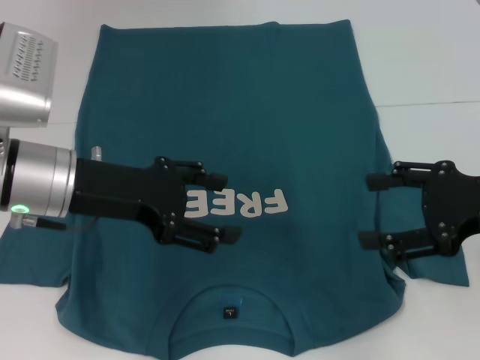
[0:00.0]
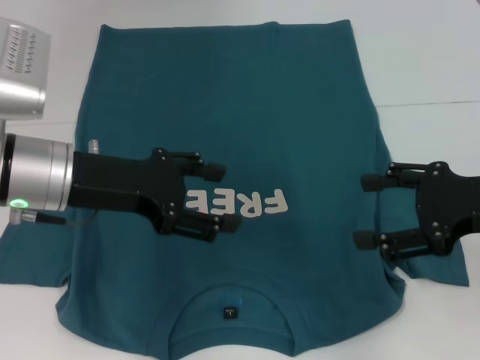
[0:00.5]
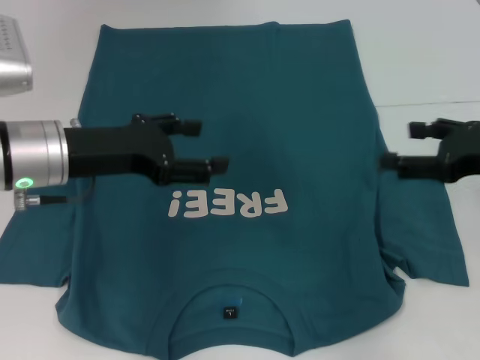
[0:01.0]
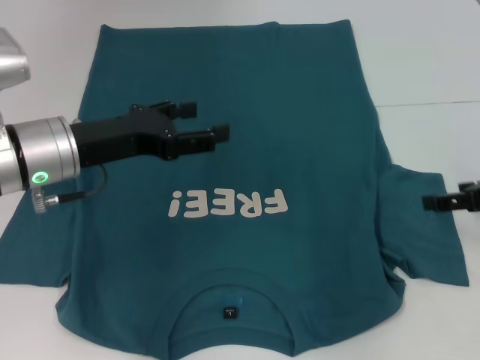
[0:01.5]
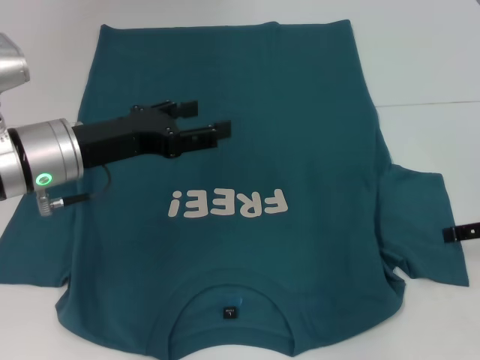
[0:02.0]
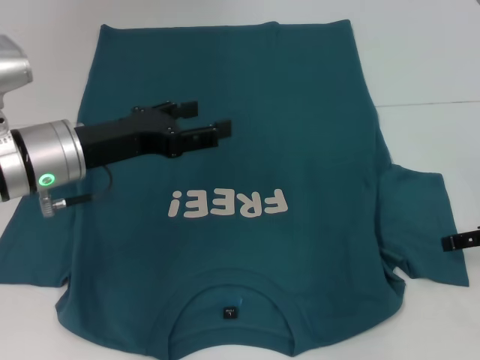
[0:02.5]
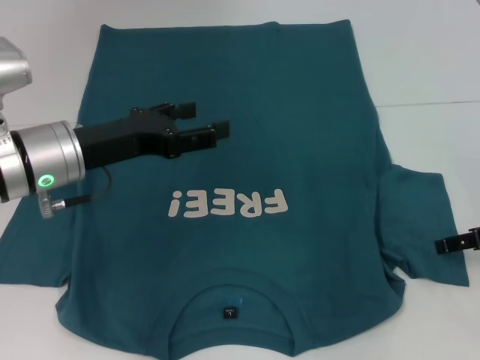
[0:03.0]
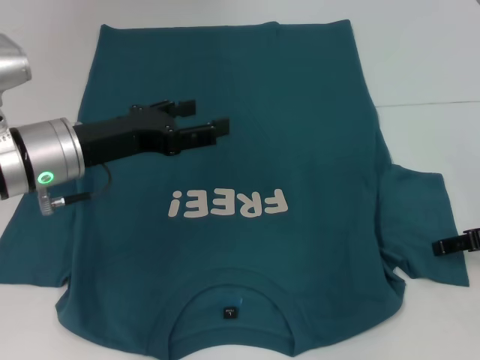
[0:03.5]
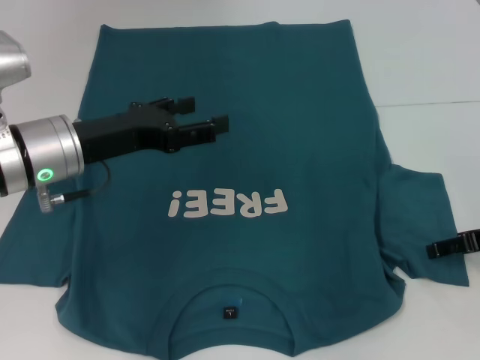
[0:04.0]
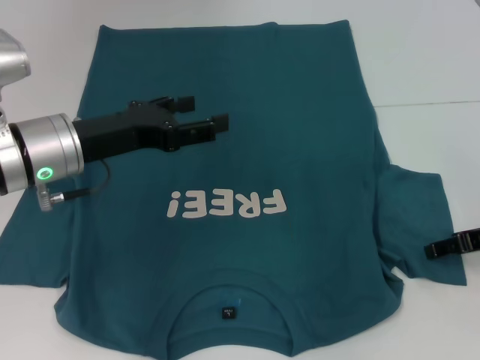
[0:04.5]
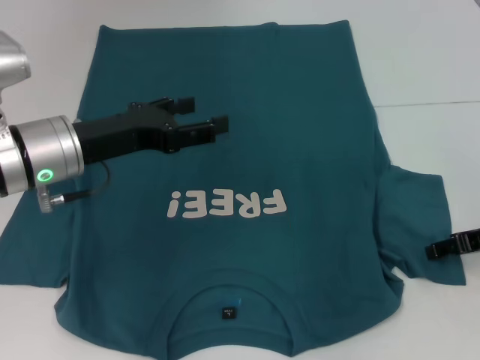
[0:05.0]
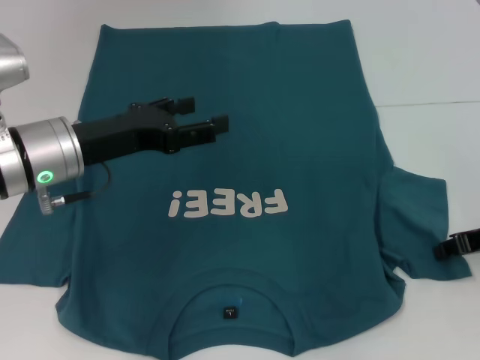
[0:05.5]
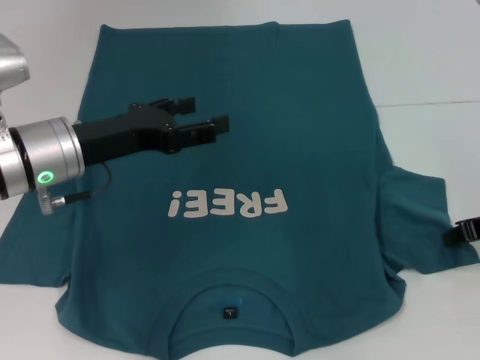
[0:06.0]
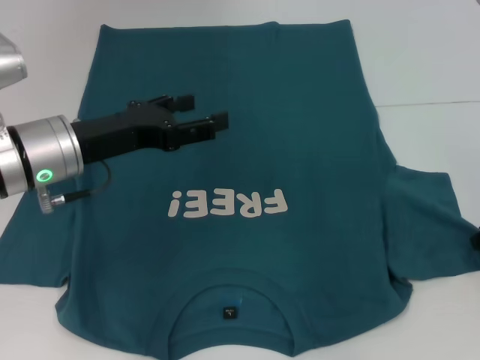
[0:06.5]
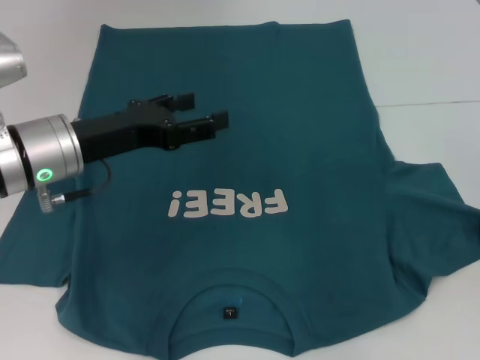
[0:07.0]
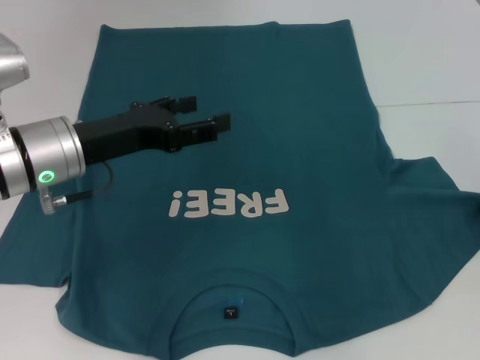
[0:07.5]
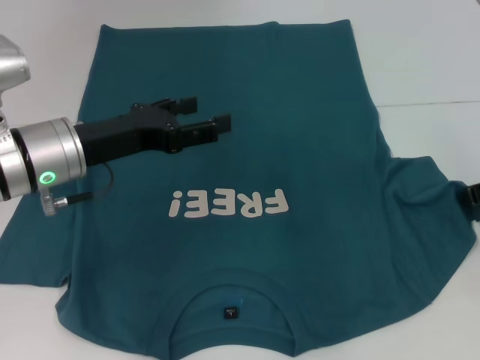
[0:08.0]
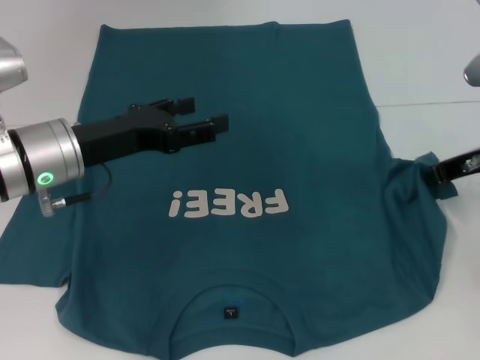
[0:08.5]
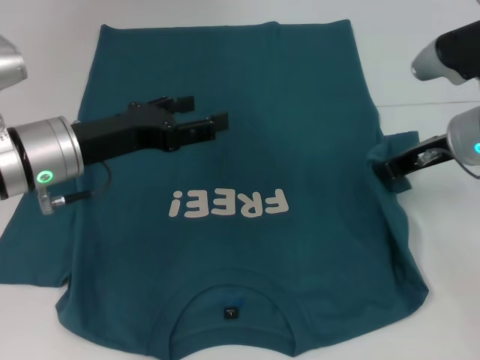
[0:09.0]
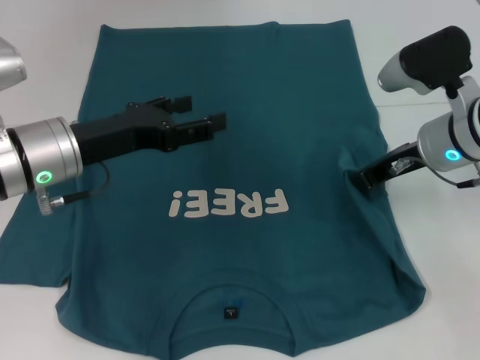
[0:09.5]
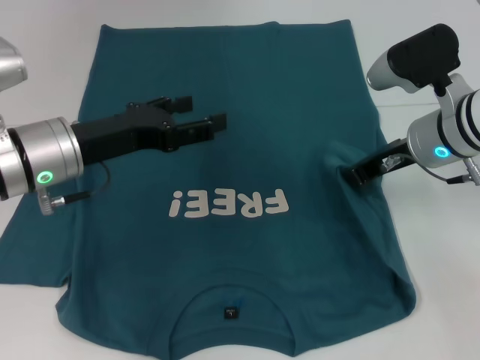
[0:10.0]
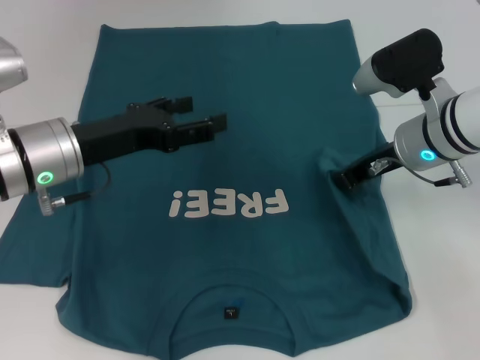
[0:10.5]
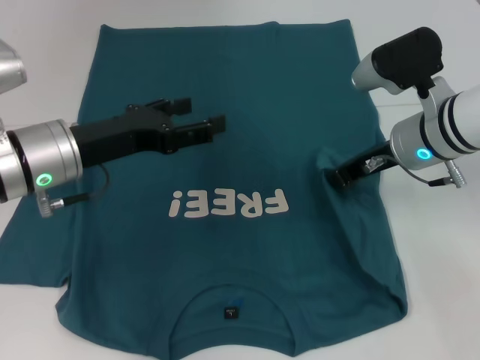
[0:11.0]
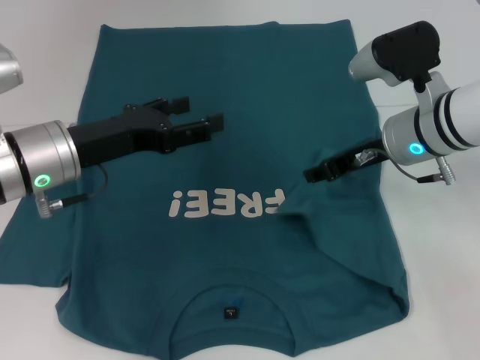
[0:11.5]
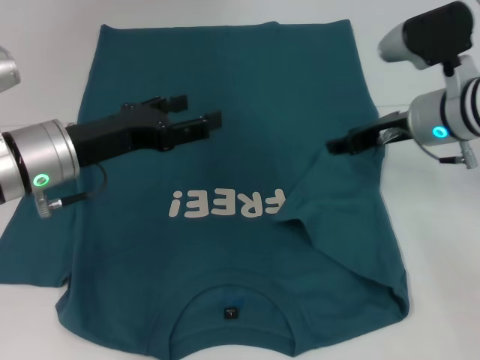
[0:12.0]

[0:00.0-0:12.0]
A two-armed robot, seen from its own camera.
0:00.0 to 0:02.0: The right gripper goes about 10 cm to the right and downward.
0:02.0 to 0:04.0: The grippers stay close to where they were, moving slightly.
0:04.0 to 0:06.0: The right gripper closes its fingers.
0:06.0 to 0:08.0: The grippers move only a little.
0:08.0 to 0:10.0: The right gripper moves to the left, approximately 10 cm.
0:10.0 to 0:12.0: The right gripper opens up.

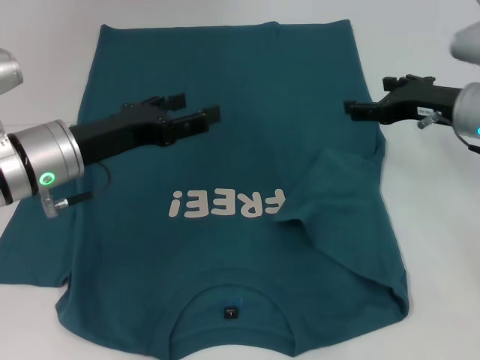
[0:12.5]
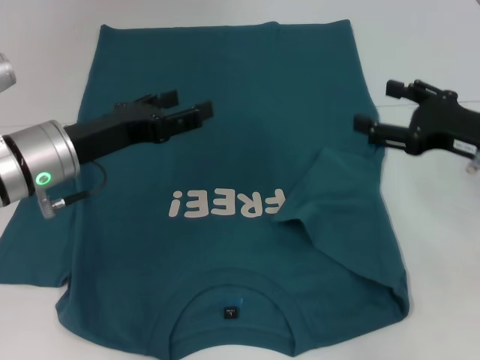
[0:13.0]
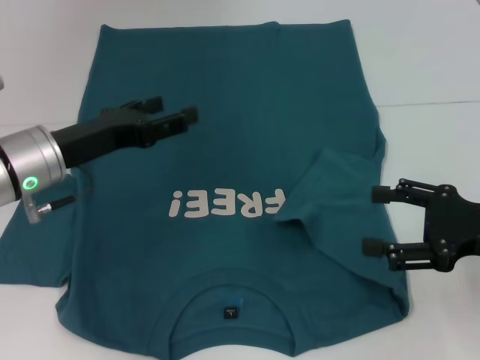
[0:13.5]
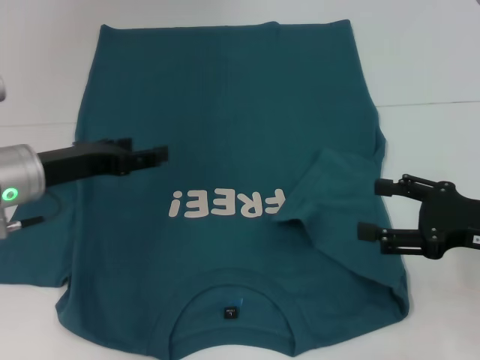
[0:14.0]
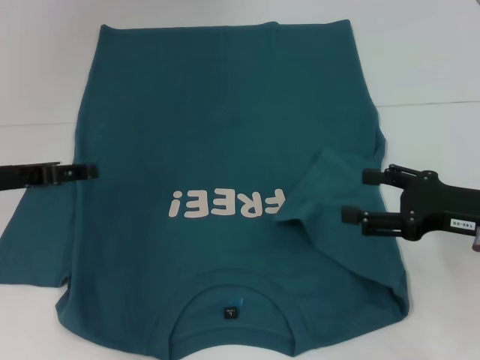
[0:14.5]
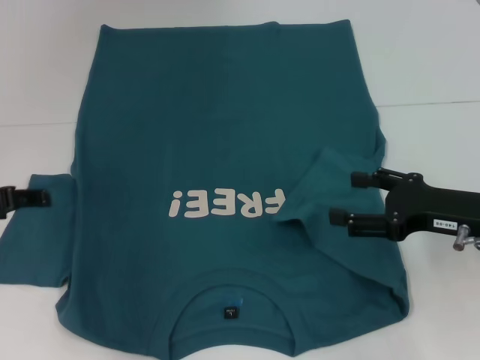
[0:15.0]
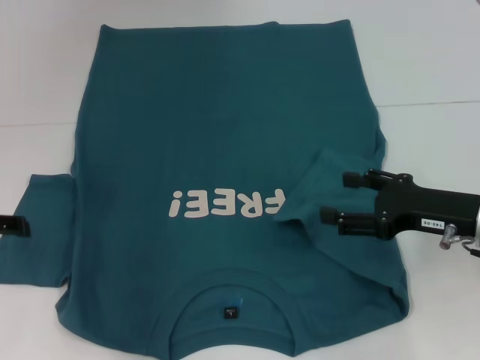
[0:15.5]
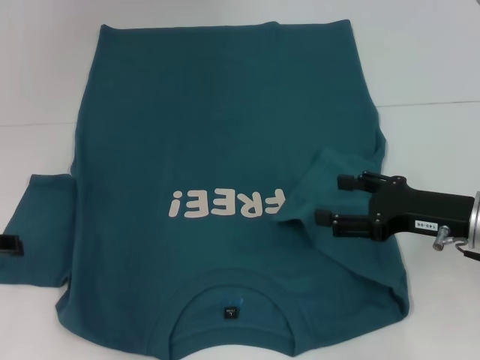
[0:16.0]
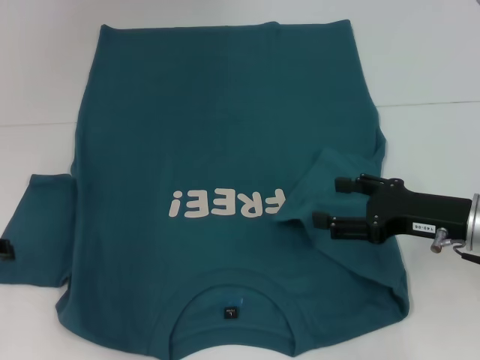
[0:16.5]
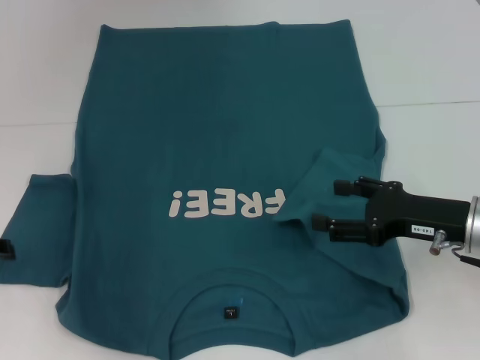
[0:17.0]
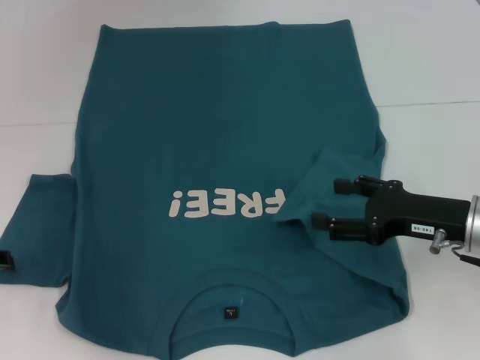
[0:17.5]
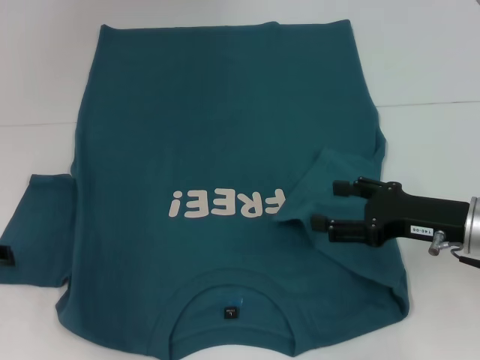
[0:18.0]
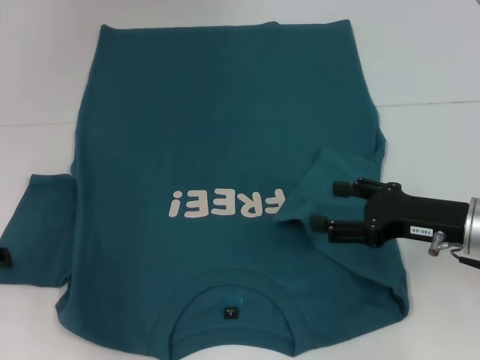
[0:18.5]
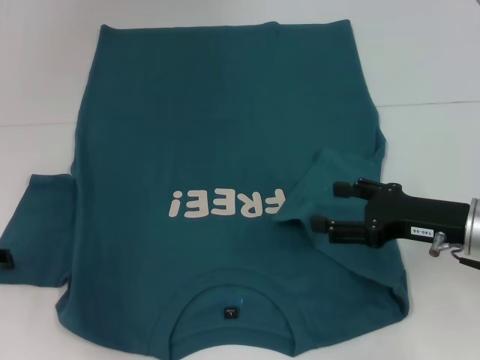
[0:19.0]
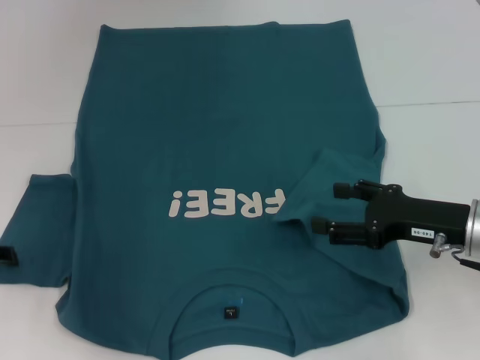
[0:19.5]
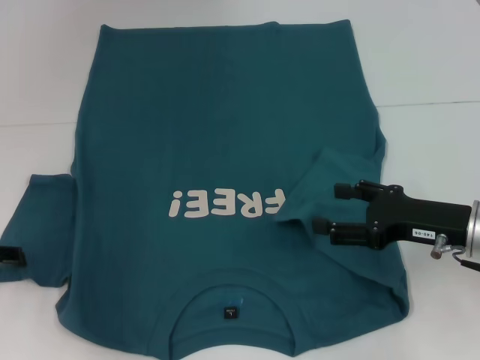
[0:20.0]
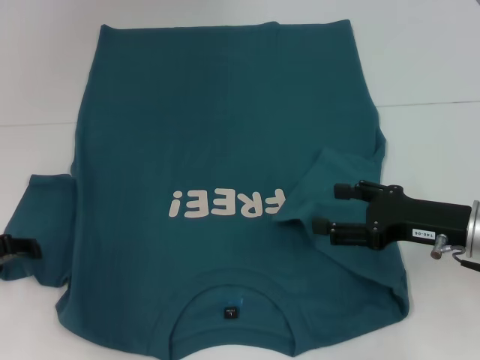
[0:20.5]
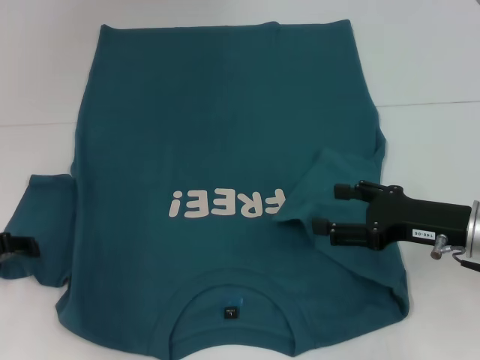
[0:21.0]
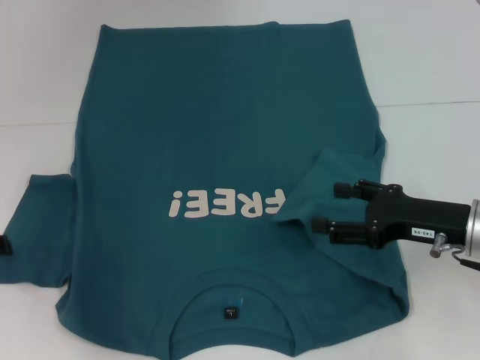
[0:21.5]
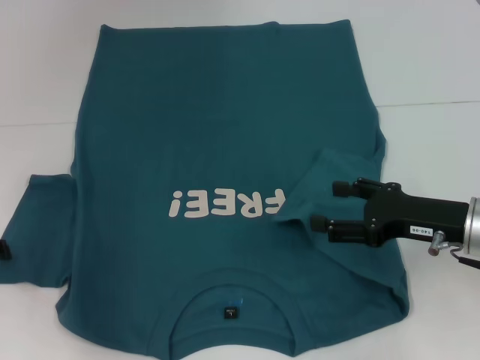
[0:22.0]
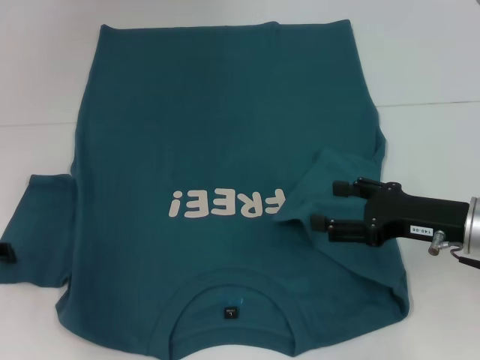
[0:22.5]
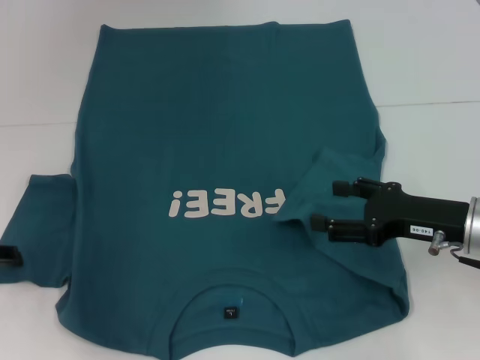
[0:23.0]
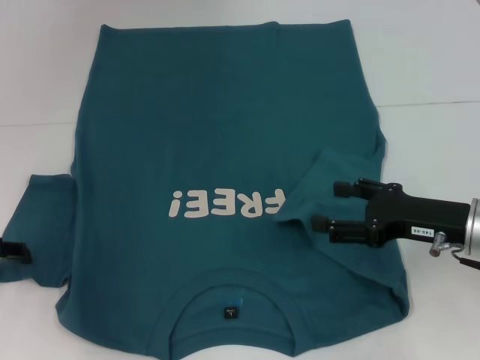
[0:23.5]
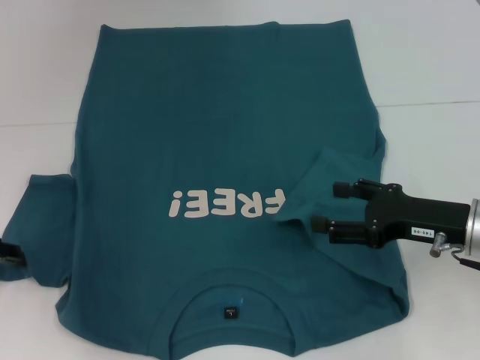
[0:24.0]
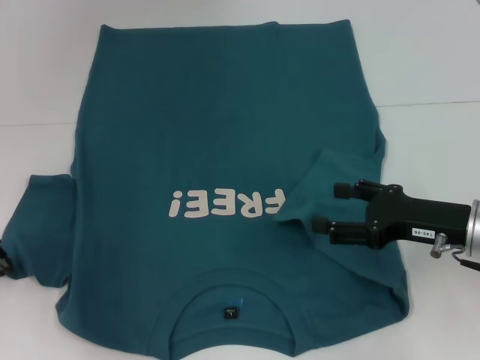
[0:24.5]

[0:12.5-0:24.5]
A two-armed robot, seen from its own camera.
0:12.5 to 0:14.5: The left gripper heads to the left, covering some 10 cm, while the right gripper is displaced backward by about 10 cm.
0:14.5 to 0:16.5: The left gripper is displaced to the left by some 5 cm.
0:16.5 to 0:22.5: There are only small adjustments of the grippers.

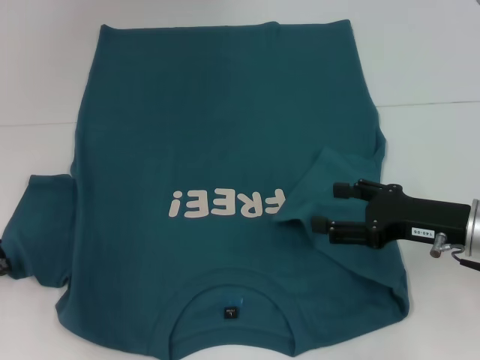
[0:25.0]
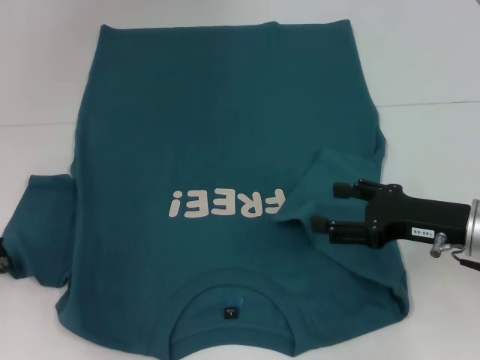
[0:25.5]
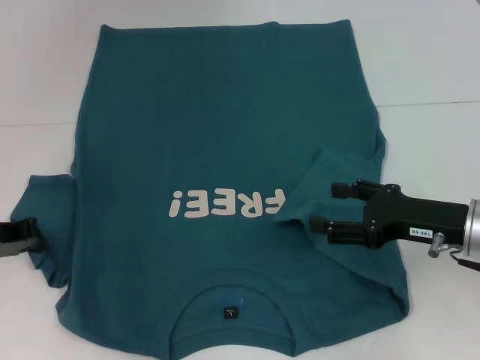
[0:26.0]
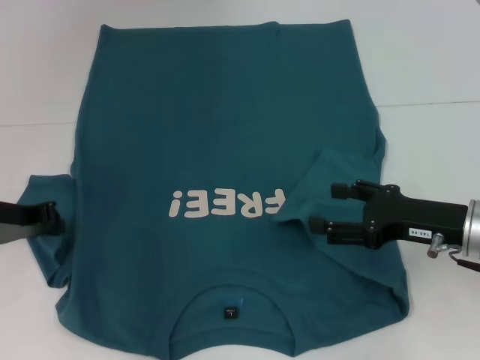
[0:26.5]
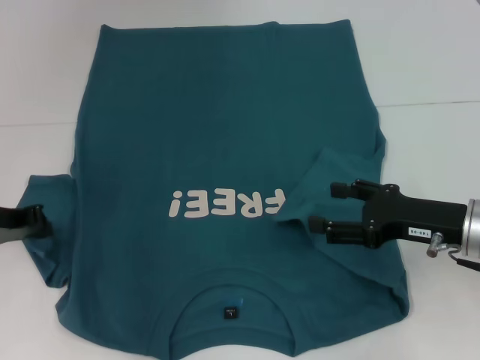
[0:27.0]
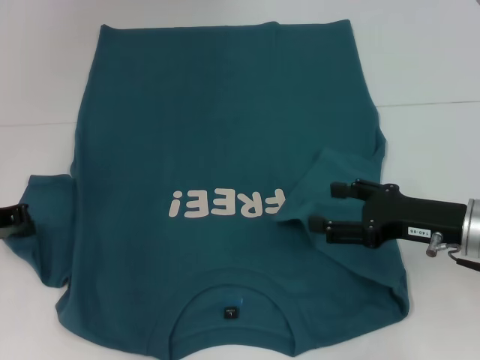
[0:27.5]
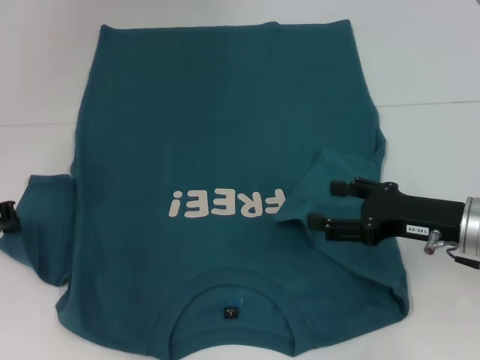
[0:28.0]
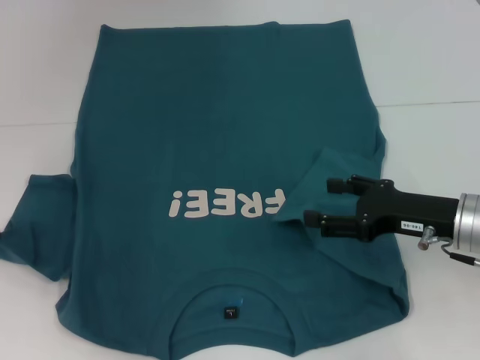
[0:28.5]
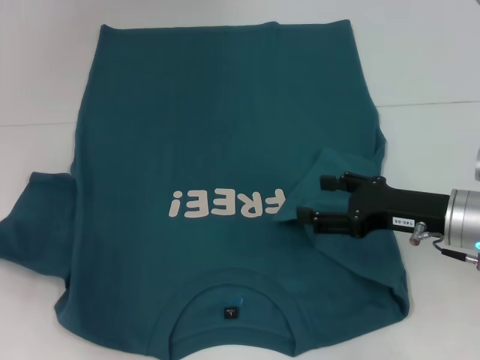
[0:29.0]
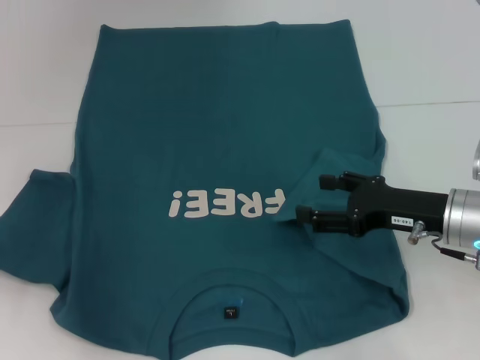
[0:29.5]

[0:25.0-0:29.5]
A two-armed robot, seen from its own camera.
0:25.0 to 0:27.0: The left gripper ends up some 5 cm from where it was.
0:27.0 to 0:29.5: The left gripper heads to the left, covering approximately 5 cm.
